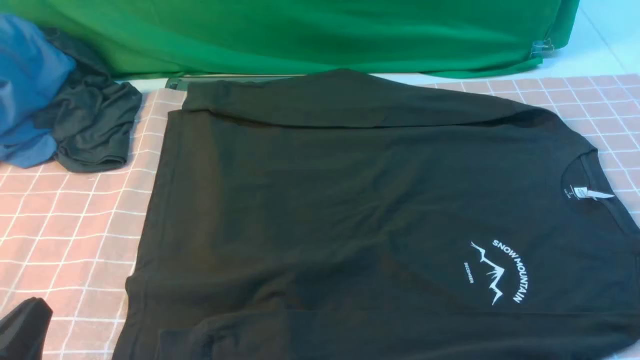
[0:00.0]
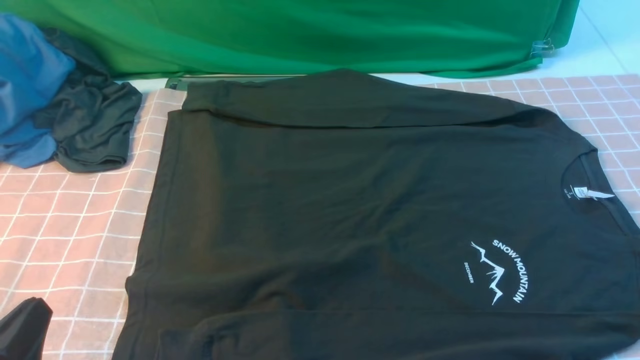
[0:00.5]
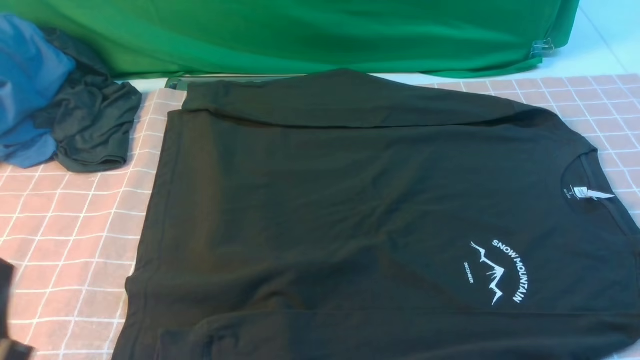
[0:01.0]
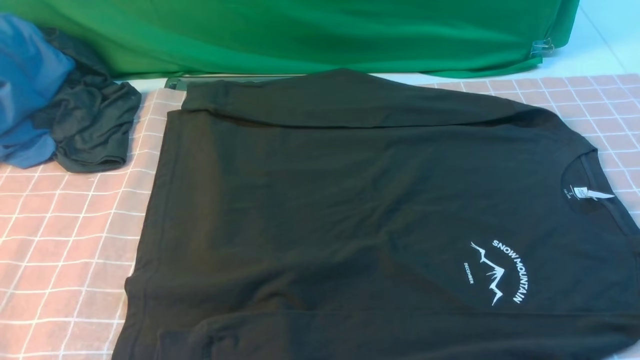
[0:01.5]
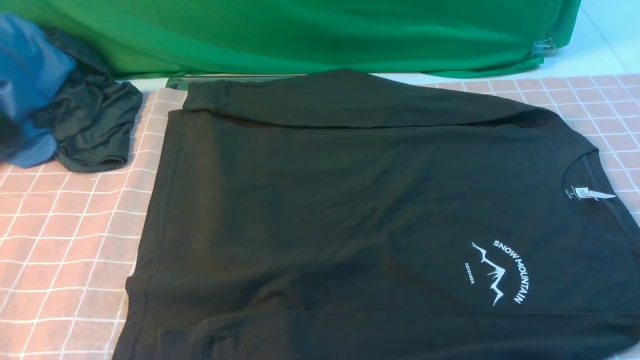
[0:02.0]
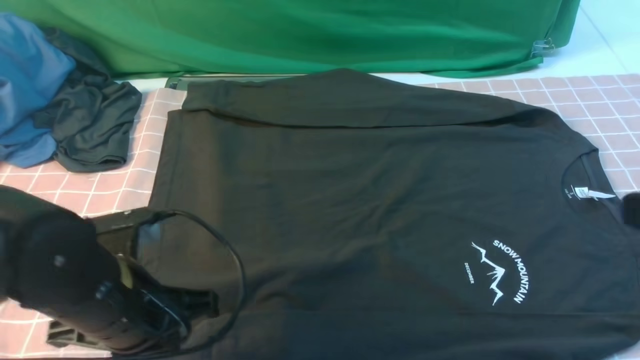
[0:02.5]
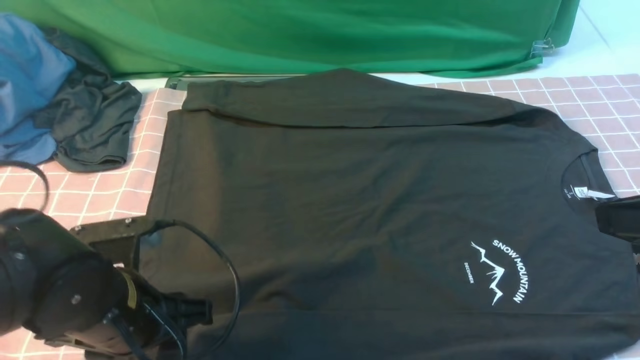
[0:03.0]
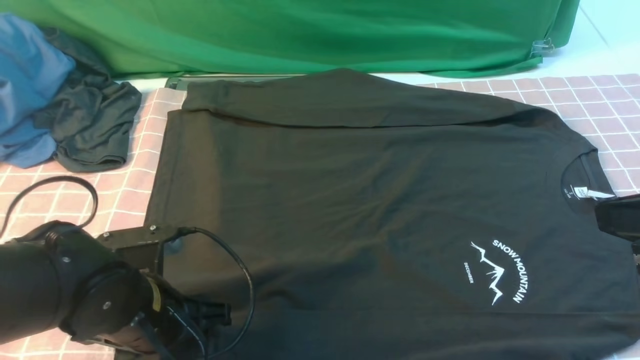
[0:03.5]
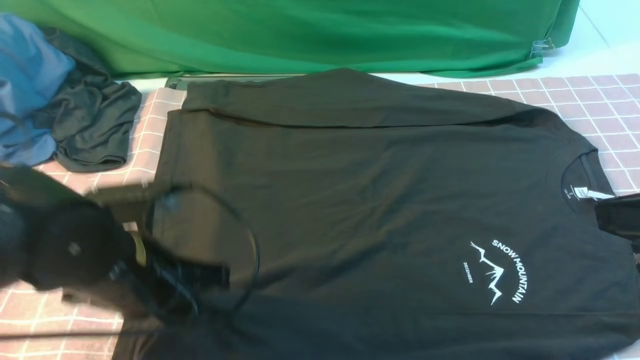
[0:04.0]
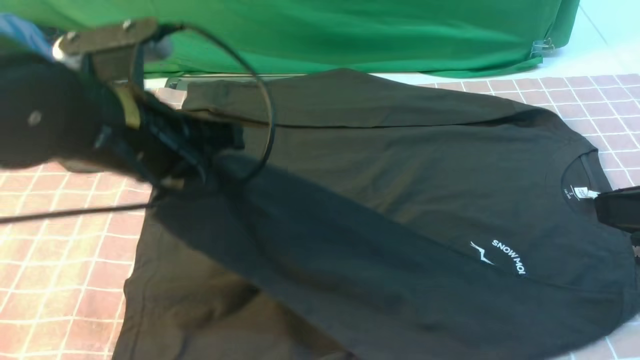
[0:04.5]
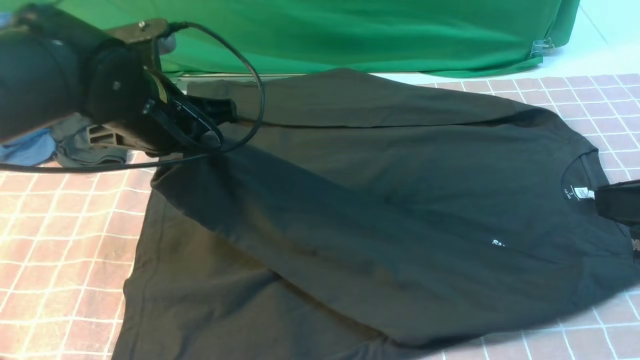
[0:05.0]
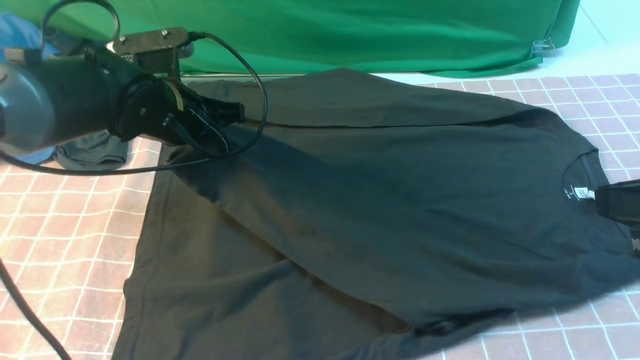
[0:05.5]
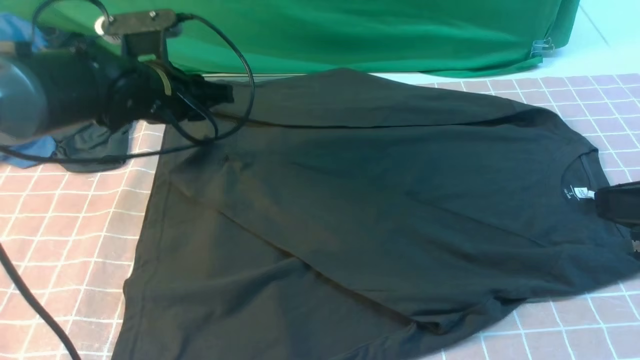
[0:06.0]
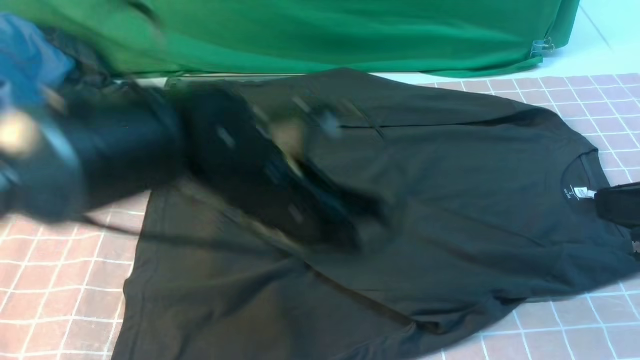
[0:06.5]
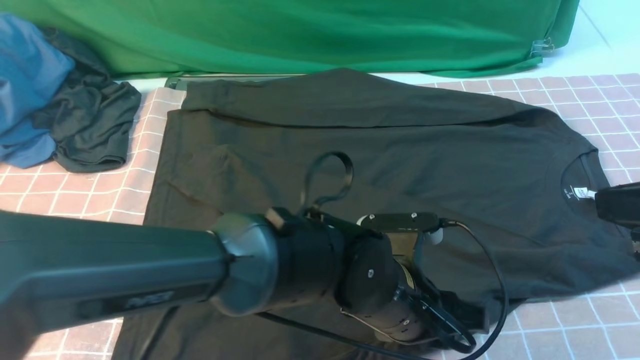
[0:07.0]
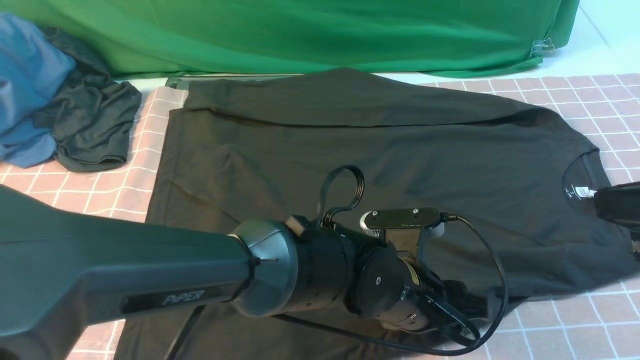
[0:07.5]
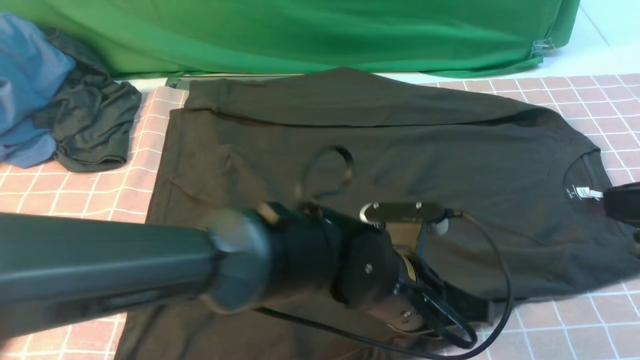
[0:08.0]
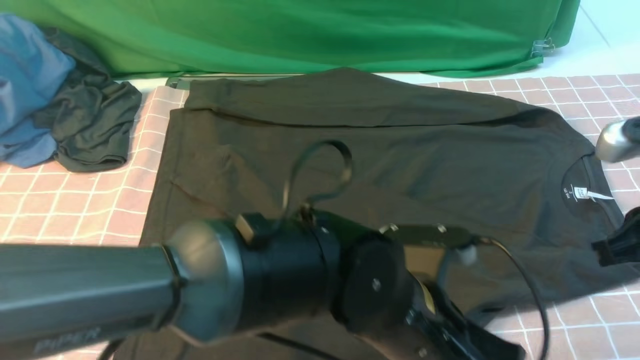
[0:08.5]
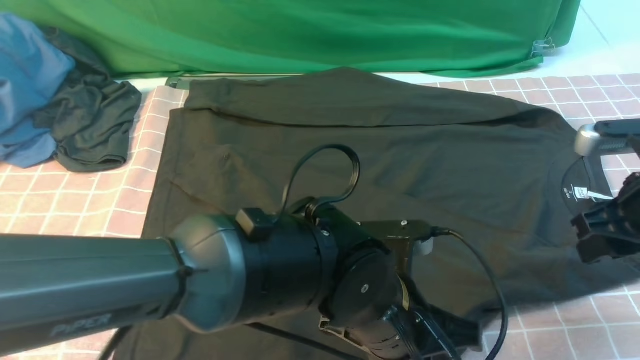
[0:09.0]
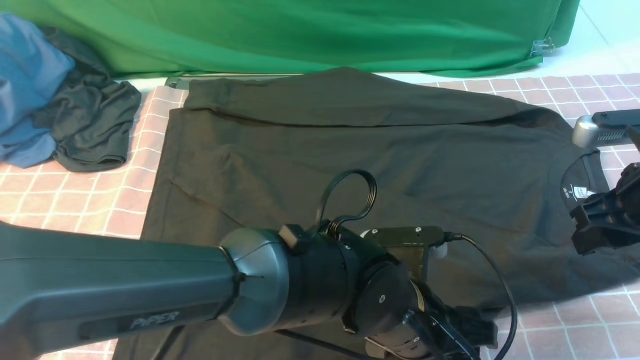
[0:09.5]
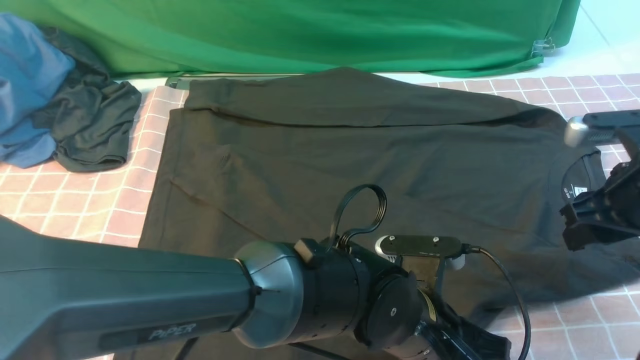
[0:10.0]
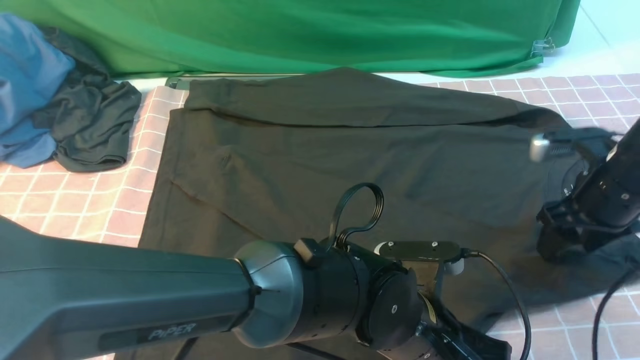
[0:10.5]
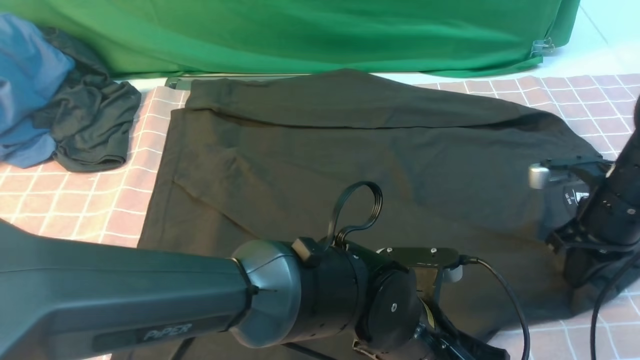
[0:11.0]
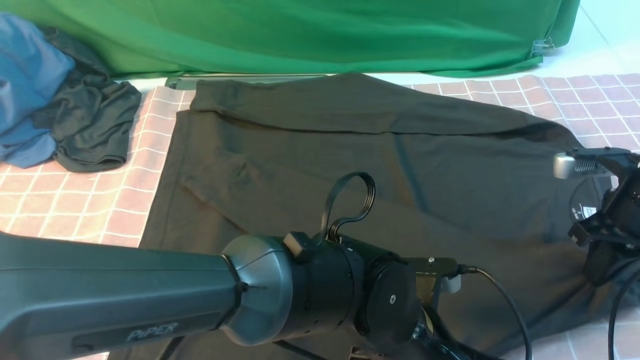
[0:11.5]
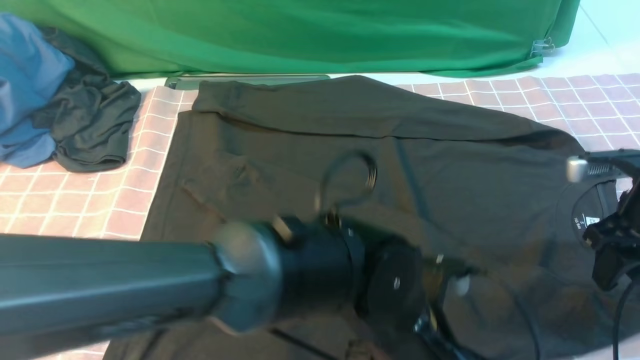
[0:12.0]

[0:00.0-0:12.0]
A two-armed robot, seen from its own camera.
Step, 0:00.0 to 0:04.0: use the left arm to clamp the cuff closest to it.
Step, 0:04.5 to 0:05.5: use the left arm to drag and place the cuff at the centered position on the left edge of the fabric.
Step, 0:06.0 to 0:08.0: use the left arm to clamp the cuff farthest from it.
0:00.0 to 0:02.0: The left gripper travels upward and forward by some 20 cm.
0:02.0 to 0:04.0: The right gripper is displaced forward, upward and to the left by some 10 cm. Meanwhile the left gripper shifts approximately 15 cm downward, to the right and forward, and opens, then closes again.
0:04.0 to 0:06.0: The left gripper is displaced forward by roughly 15 cm, and opens.
0:06.0 to 0:08.0: The left gripper is displaced to the right and backward by roughly 30 cm, and closes its fingers.
0:08.0 to 0:10.0: The right gripper goes about 15 cm forward and downward, and opens. Meanwhile the left gripper opens, then closes once more.
0:10.0 to 0:12.0: The right gripper closes and opens again; the left gripper moves upward, roughly 5 cm.

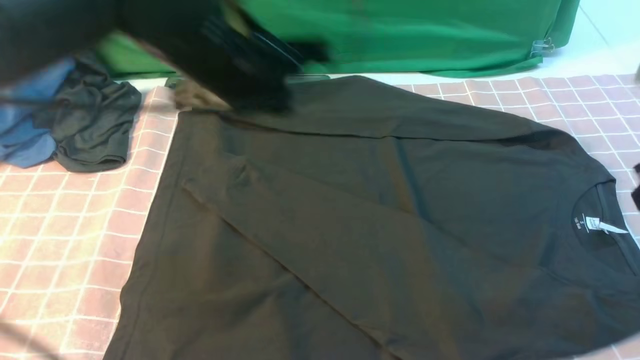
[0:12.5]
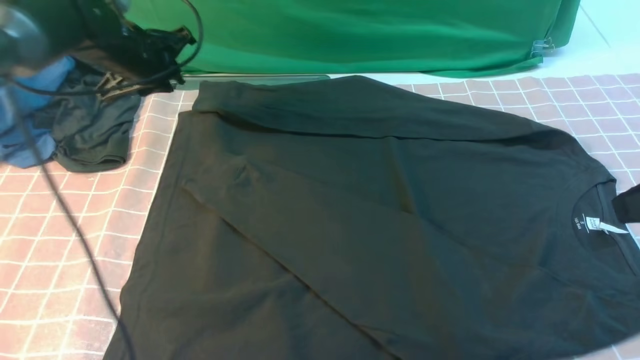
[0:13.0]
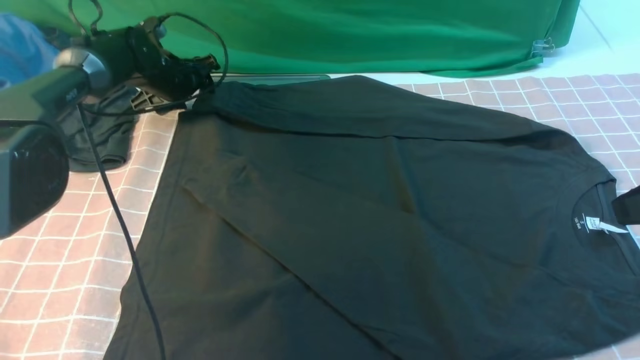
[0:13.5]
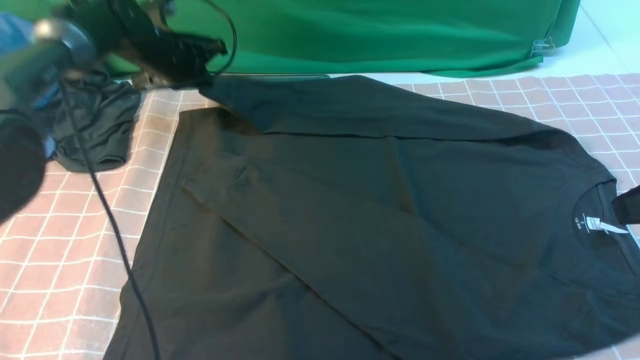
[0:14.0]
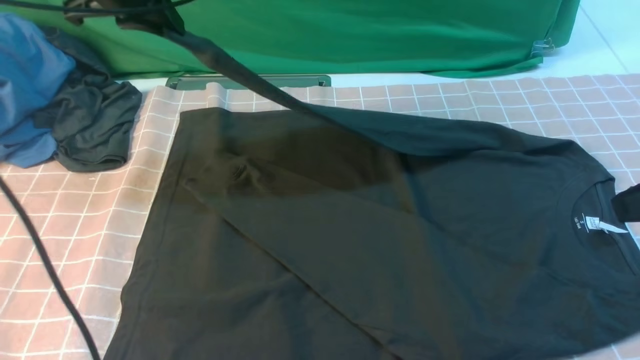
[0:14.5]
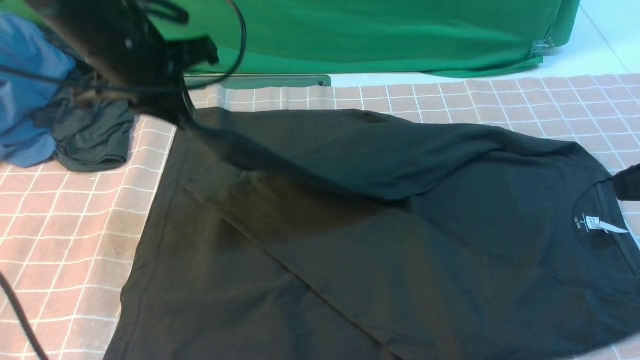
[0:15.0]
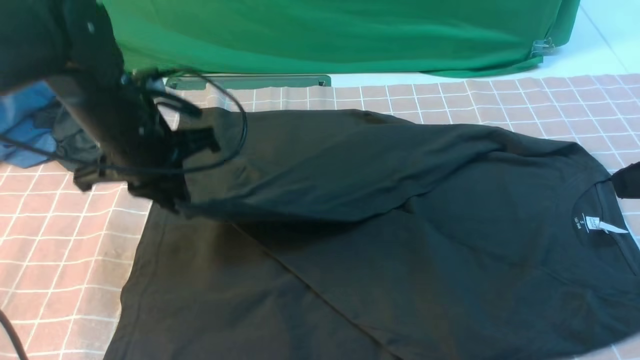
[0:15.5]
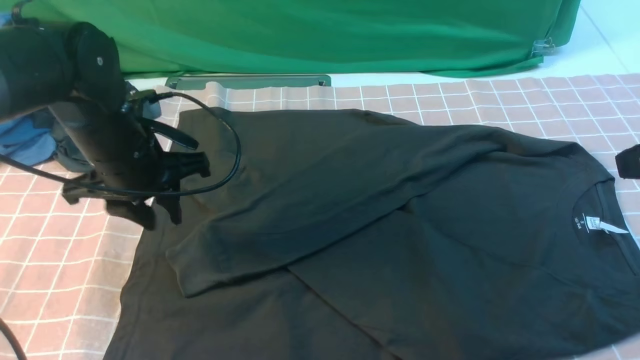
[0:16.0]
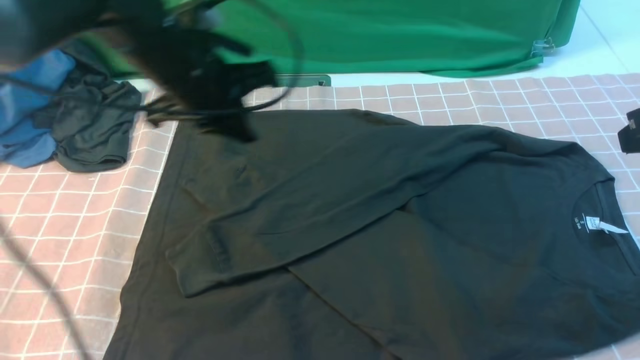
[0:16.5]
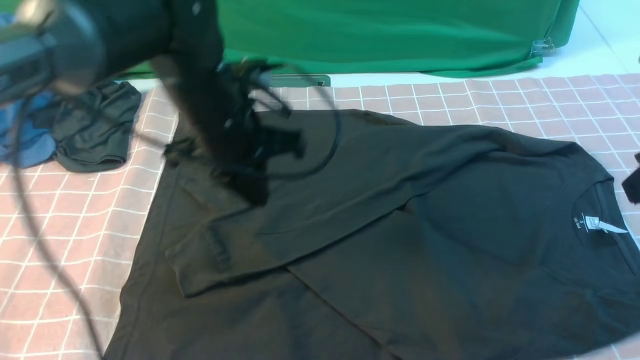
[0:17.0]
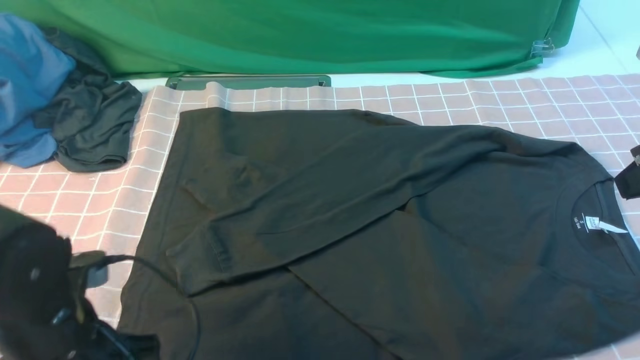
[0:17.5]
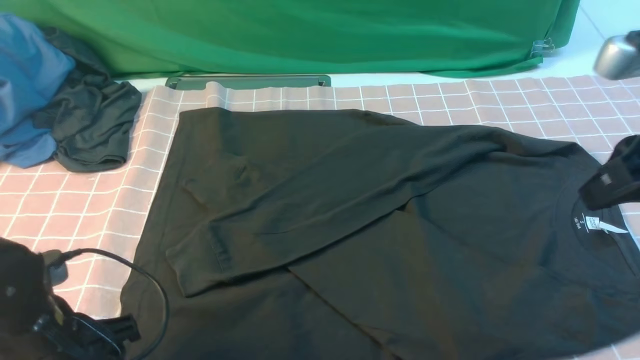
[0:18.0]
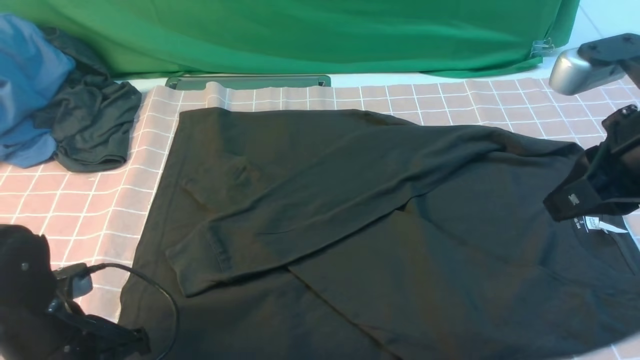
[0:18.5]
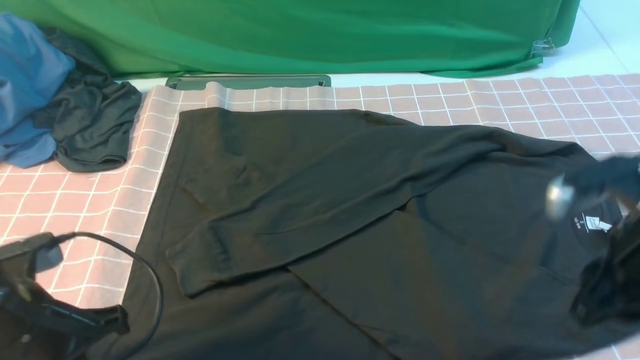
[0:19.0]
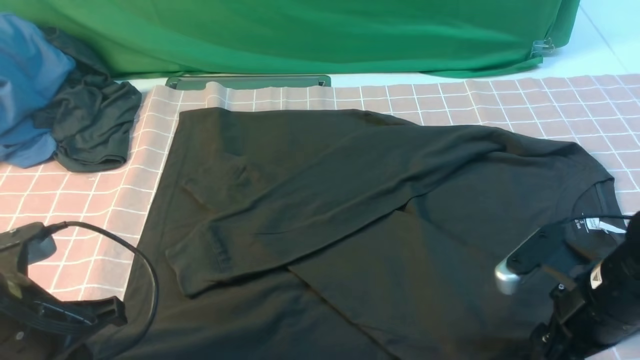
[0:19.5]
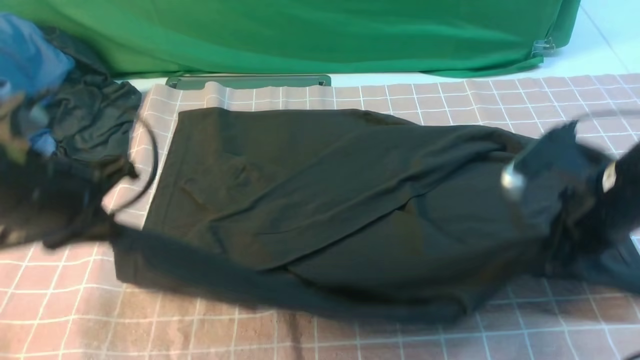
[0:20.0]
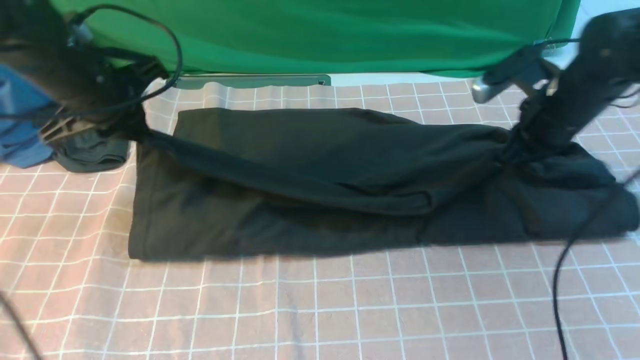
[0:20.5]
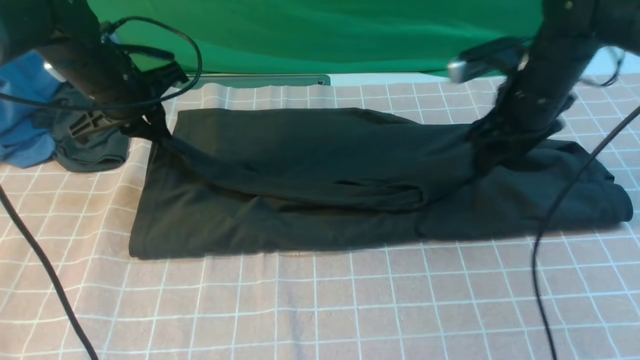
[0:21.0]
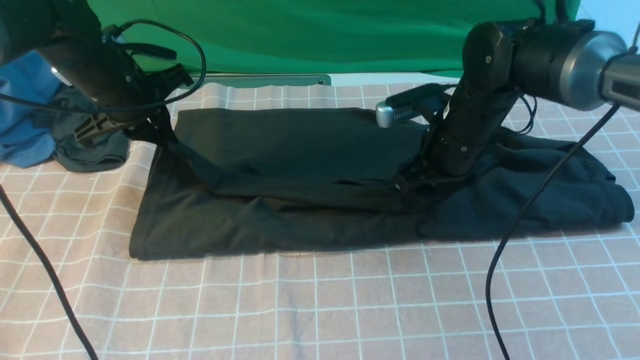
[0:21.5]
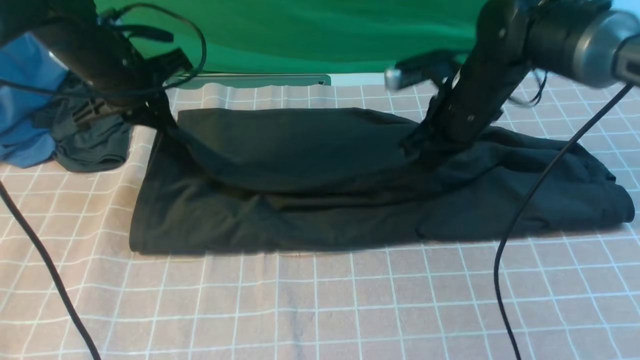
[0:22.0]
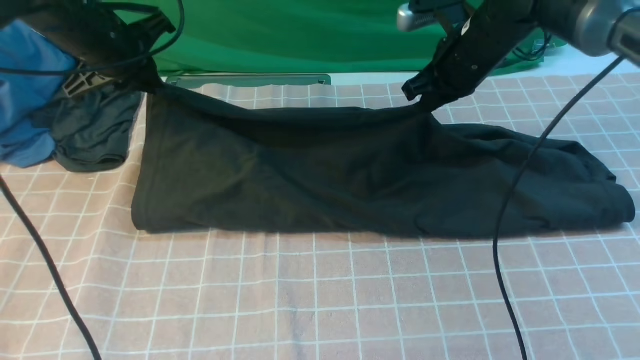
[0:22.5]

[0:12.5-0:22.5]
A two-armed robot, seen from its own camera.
Step, 0:12.5 to 0:15.5: use the left arm to drag and drop the cuff onto the cuff closest to the left arm.
Step, 0:16.0 to 0:19.5: use both arms simultaneously to clamp the lower edge of the clothing fabric.
0:12.5 to 0:14.5: The left gripper travels to the left and forward by approximately 15 cm, and opens, then closes once more.
0:14.5 to 0:16.5: The right gripper heads forward, covering some 5 cm. Meanwhile the left gripper shifts approximately 10 cm to the right, downward and backward, and opens, then closes again.
0:16.5 to 0:18.5: The right gripper moves to the left, some 5 cm, while the left gripper shifts roughly 25 cm backward, downward and to the left, and opens, then closes again.
0:18.5 to 0:20.5: The right gripper goes roughly 20 cm forward and downward, and opens and closes again. The left gripper moves forward and upward, some 25 cm.
0:20.5 to 0:22.5: The right gripper goes approximately 10 cm to the left and forward, and opens, then closes once more; the left gripper moves forward, approximately 5 cm.
